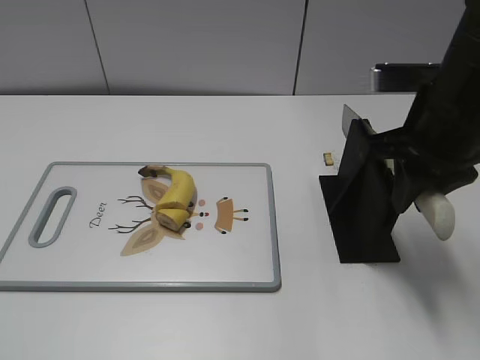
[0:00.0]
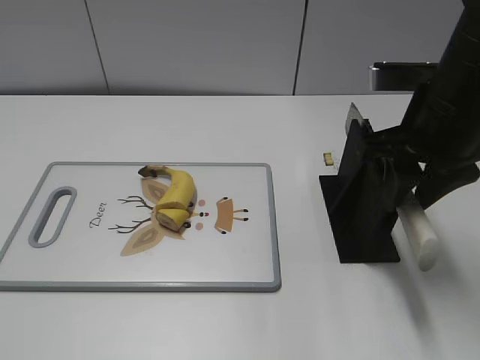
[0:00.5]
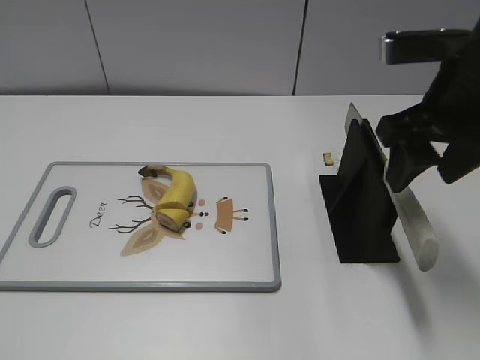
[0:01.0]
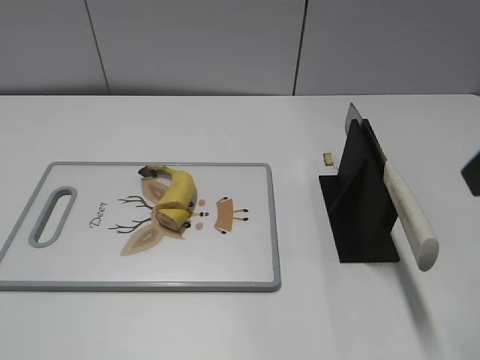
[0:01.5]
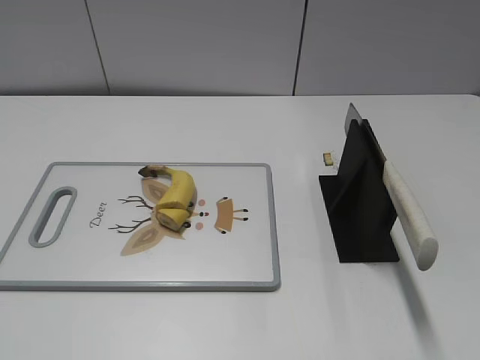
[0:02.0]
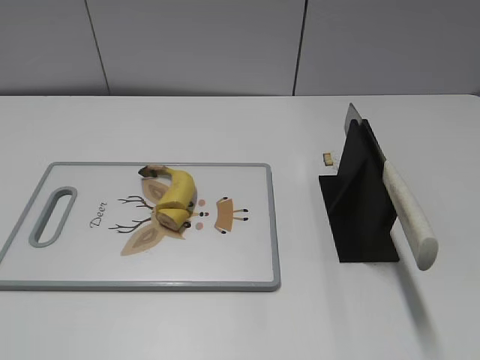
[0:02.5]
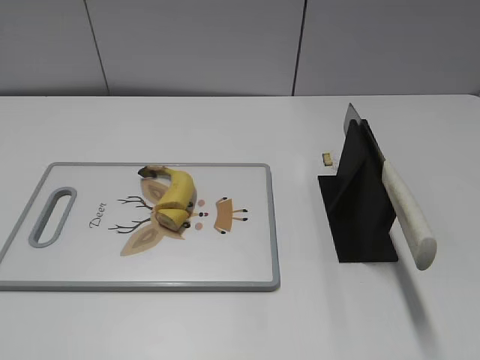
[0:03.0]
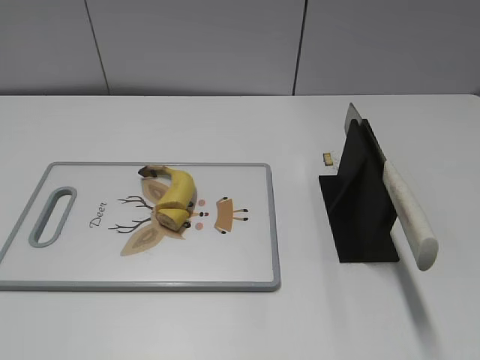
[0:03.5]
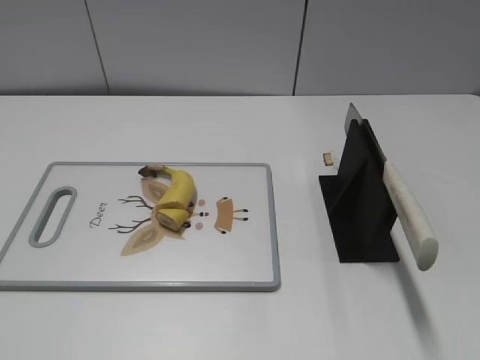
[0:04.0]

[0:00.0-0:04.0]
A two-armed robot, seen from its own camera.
Task of the whole recording: cut banana.
Step, 0:00.0 to 0:04.0: Place the knife on the storage rack with your right hand.
0:00.0 to 0:02.0: The right gripper heads backward, covering about 20 cm, and opens.
